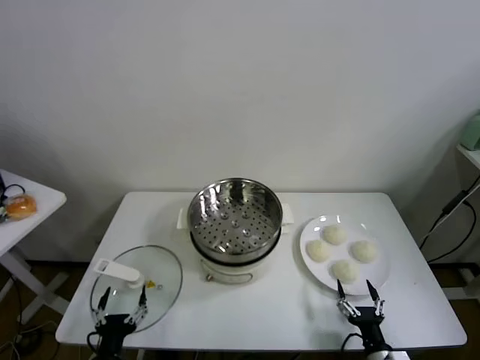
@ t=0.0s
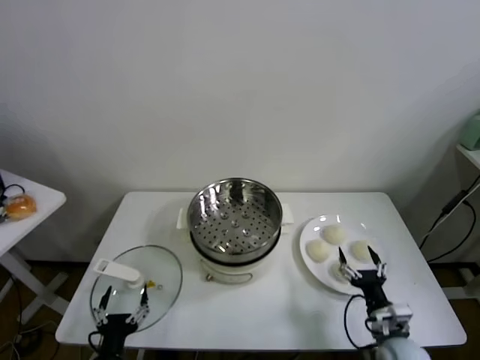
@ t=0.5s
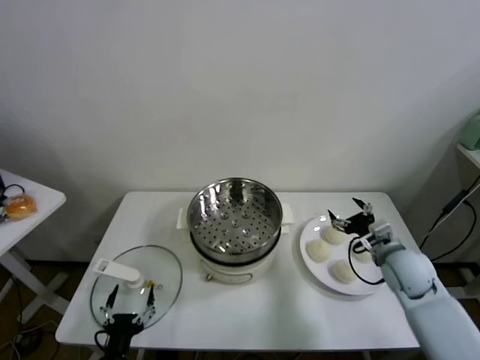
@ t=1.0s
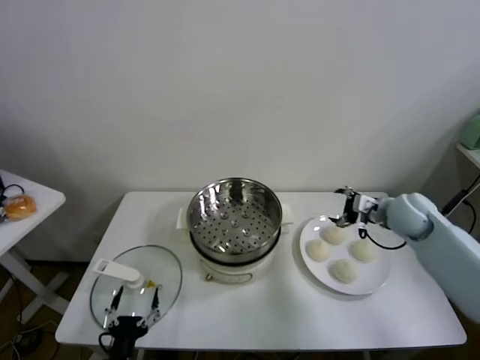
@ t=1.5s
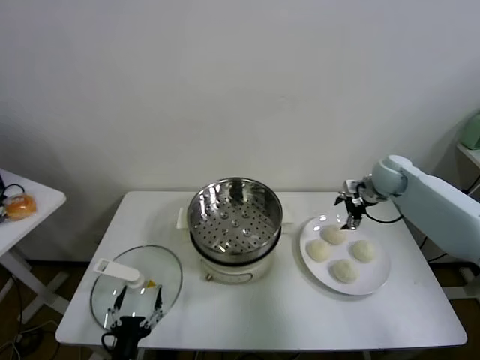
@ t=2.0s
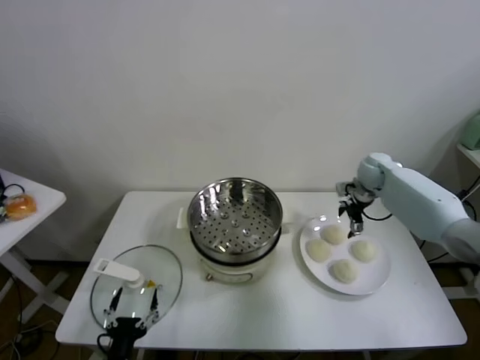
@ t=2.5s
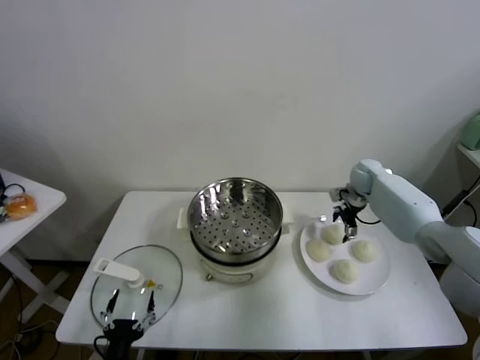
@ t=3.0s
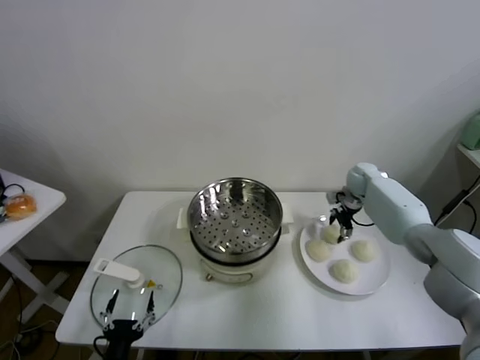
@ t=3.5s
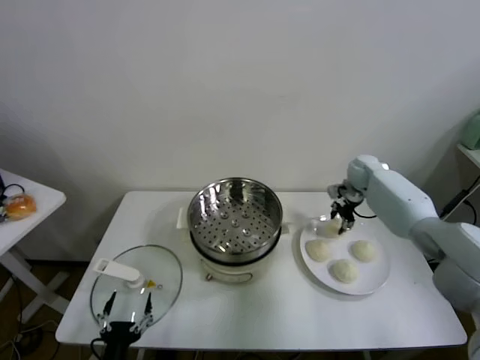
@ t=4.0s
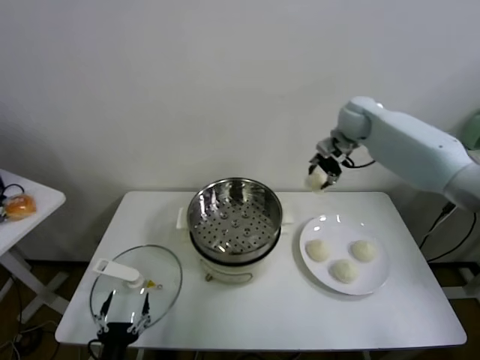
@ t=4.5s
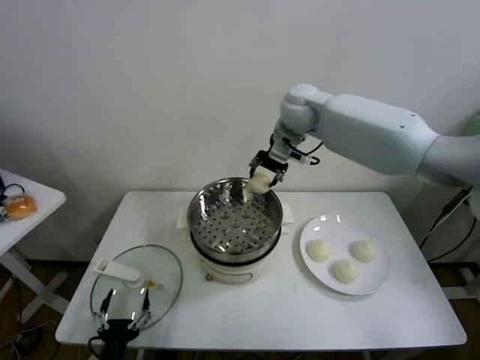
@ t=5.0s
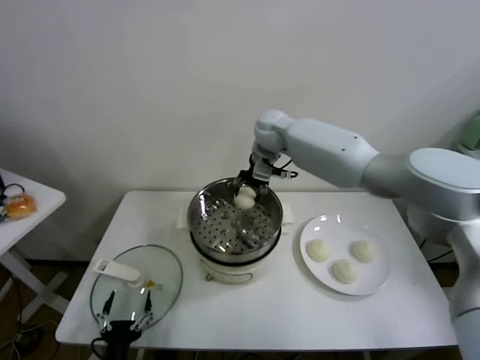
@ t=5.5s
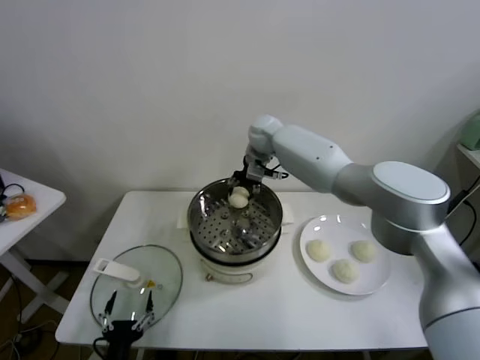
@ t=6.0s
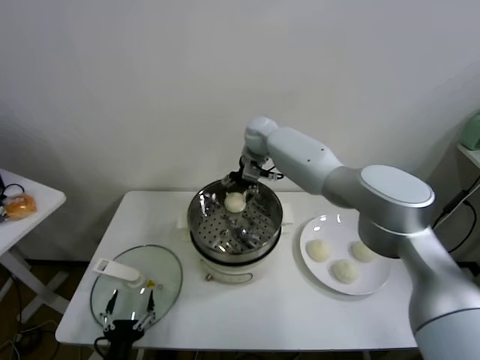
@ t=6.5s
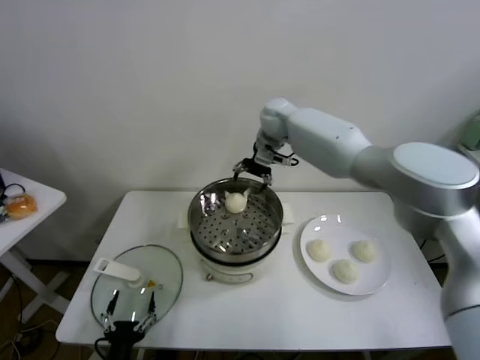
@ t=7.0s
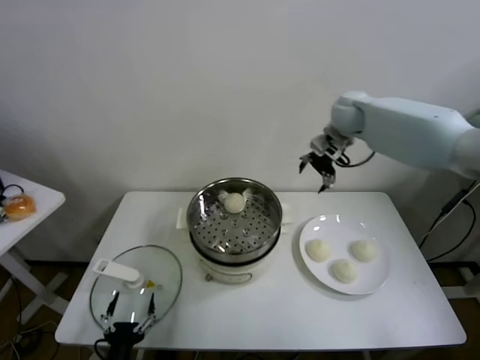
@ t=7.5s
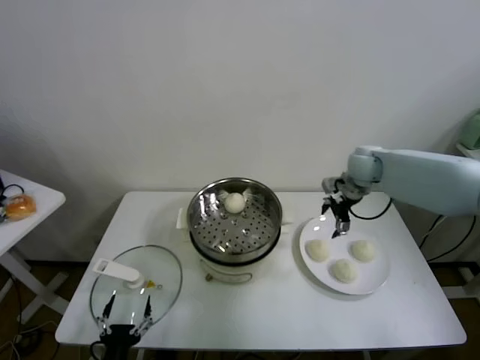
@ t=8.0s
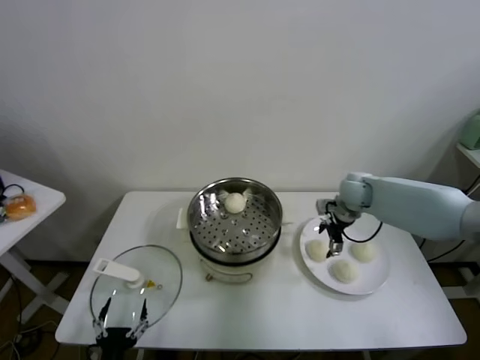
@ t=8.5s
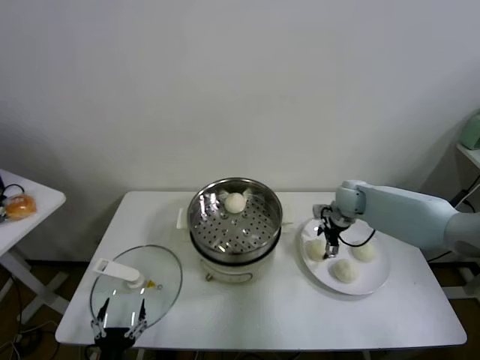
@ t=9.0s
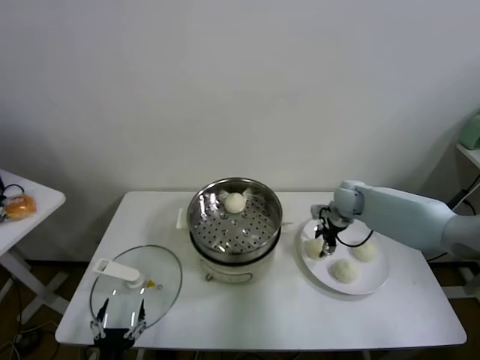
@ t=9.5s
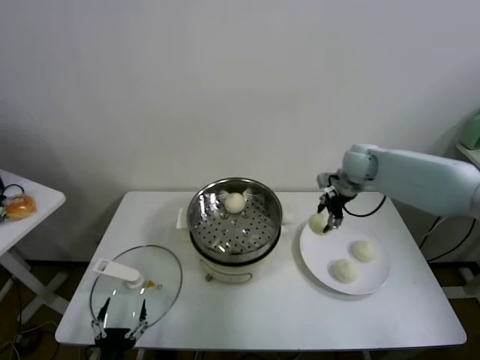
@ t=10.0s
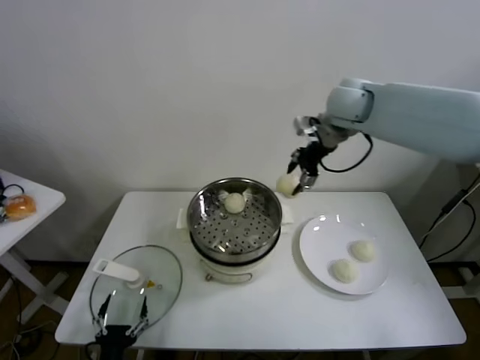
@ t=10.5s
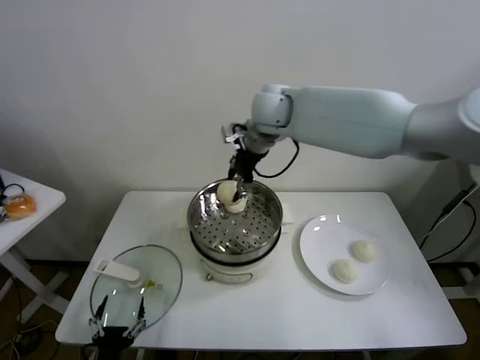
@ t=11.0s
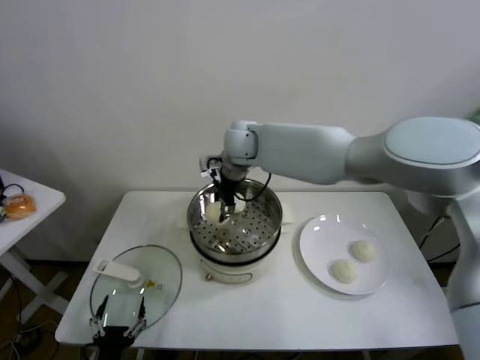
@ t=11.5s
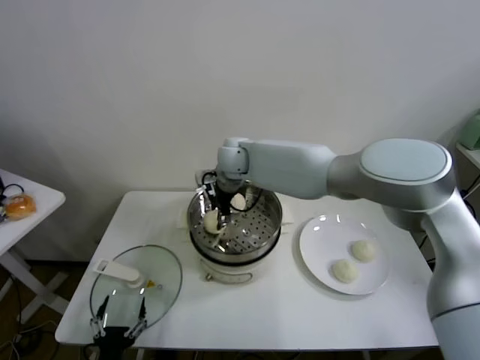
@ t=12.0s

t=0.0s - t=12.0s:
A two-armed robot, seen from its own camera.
Task of the whole recording: take steamed baozi put them in steamer.
Step, t=0.0s - t=3.5s: Grasp the baozi in the plate with right gripper.
Step, t=4.0s - t=6.5s: Place the baozi on the steamer with right gripper.
Step, t=7.0s - t=9.0s: Grasp the baozi in the plate with right gripper.
t=2.0s - t=4.0s: The right gripper travels forward by some 5 cm, travels downward and back again, roughly 10 cm each way, and closes up.
t=4.0s - t=6.0s: The right gripper heads to the left, covering some 30 cm.
t=6.0s - t=8.0s: The right gripper travels to the right by about 25 cm, and opens up.
t=8.0s - t=10.0s: The right gripper goes downward and returns, approximately 10 cm each way, and closes.
t=10.0s - t=12.0s: The right gripper travels to the left by roughly 30 cm.

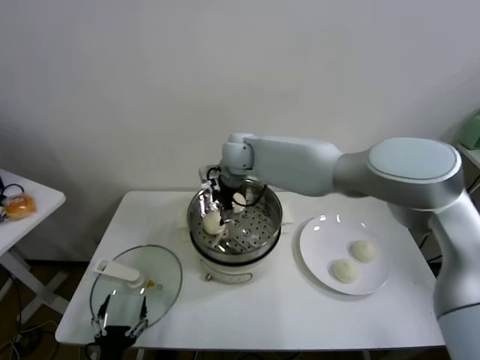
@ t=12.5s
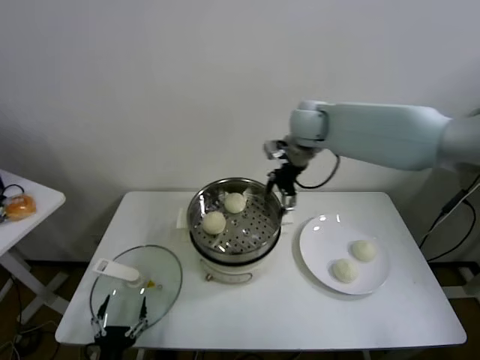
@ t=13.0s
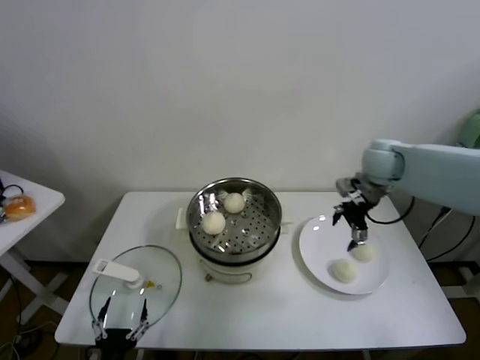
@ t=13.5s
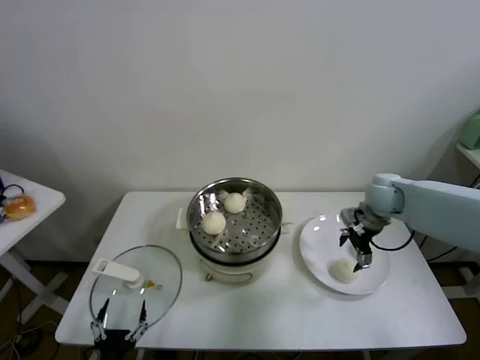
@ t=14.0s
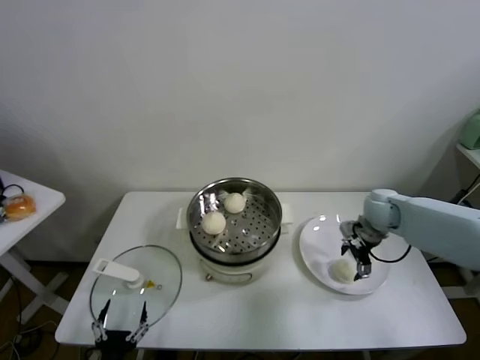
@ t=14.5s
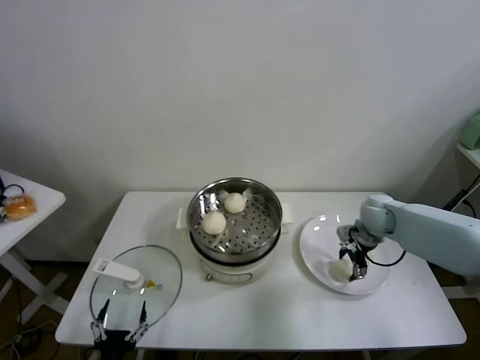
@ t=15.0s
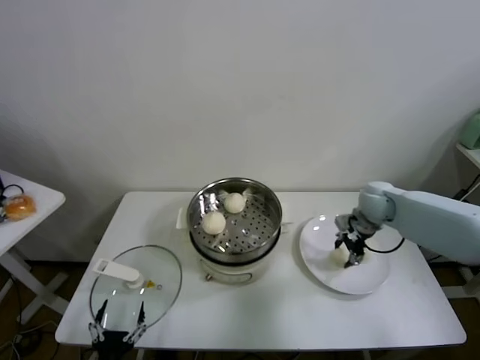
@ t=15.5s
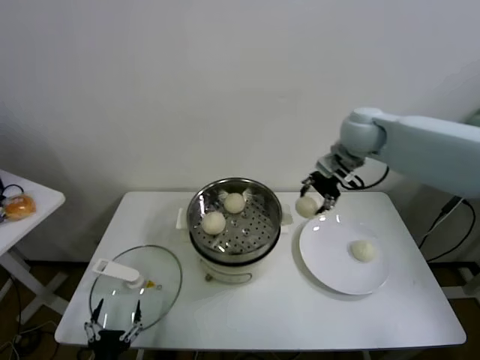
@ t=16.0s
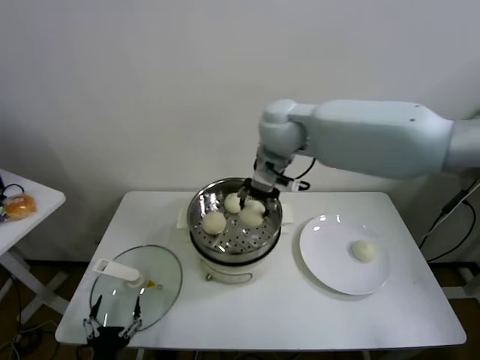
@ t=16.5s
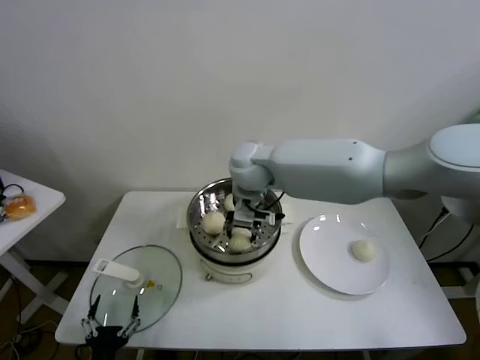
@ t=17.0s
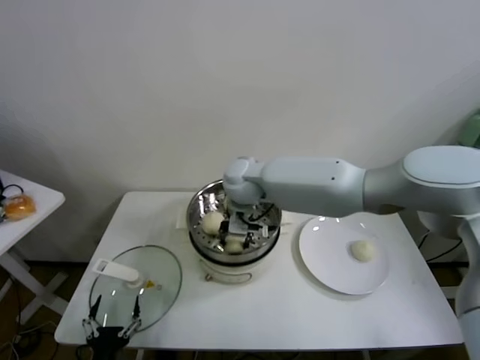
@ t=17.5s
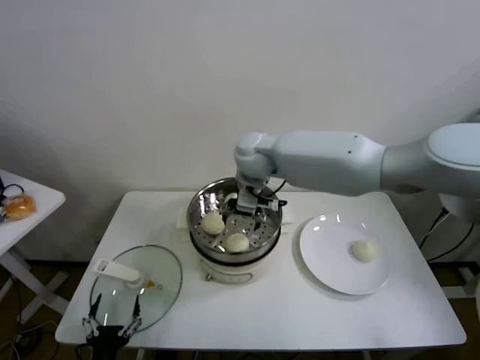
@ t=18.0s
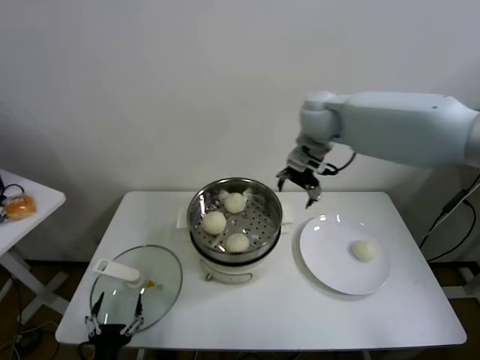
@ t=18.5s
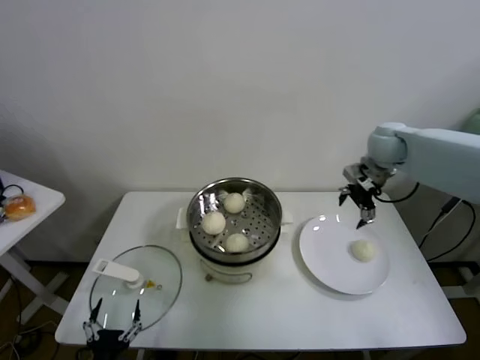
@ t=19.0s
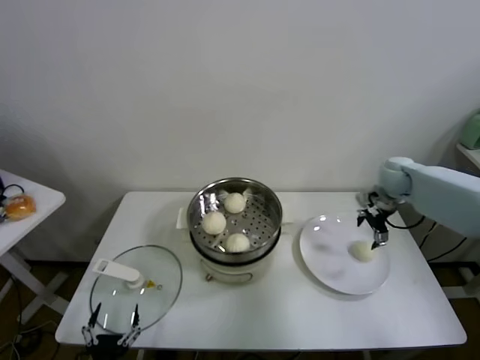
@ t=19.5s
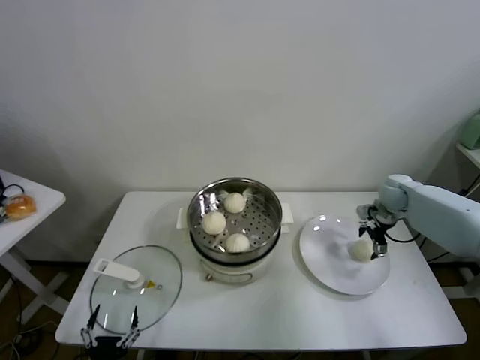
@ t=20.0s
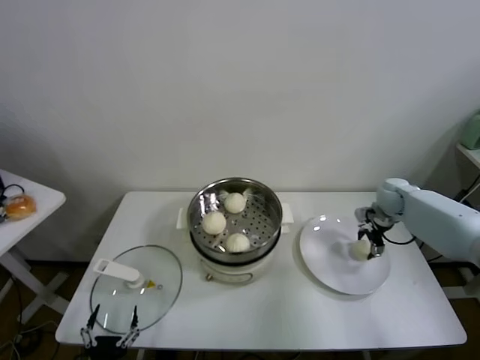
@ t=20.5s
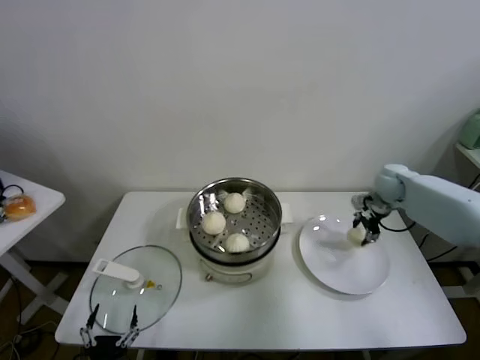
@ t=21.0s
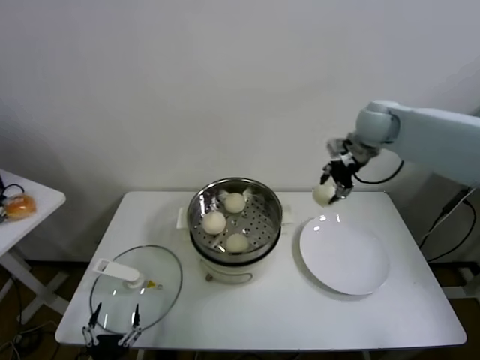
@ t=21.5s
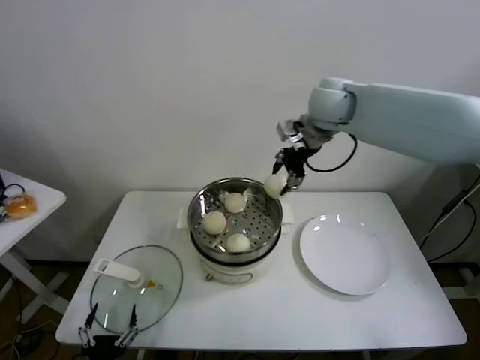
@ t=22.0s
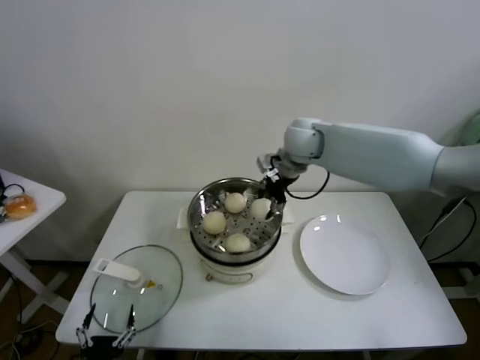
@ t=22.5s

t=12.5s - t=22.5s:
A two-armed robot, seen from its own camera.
Task of the whole recording: take steamed baozi put them in steamer.
Step, t=12.5s - t=15.0s: Grasp the baozi in the plate with right gripper.
Step, t=15.5s - t=17.5s: Place the baozi on the steamer with right gripper.
Step, t=18.0s - t=20.5s: Grasp the baozi in the plate with right gripper.
t=12.5s - t=14.5s: The right gripper goes about 35 cm to the right.
t=14.5s - t=16.5s: The right gripper is displaced to the left and upward by roughly 35 cm, and closes.
t=16.5s - t=18.5s: The right gripper heads to the right and forward, covering about 10 cm, and opens.
t=18.5s - t=20.5s: The right gripper heads downward and to the right, covering about 35 cm, and closes.
t=20.5s - t=22.5s: The right gripper moves to the left and upward, approximately 35 cm, and closes up.

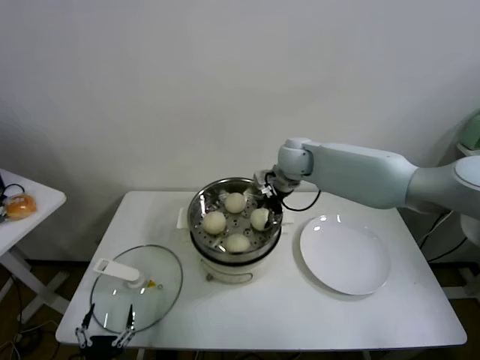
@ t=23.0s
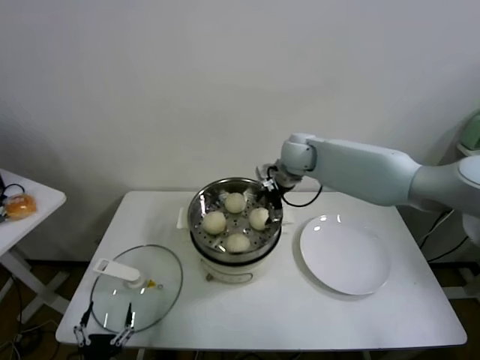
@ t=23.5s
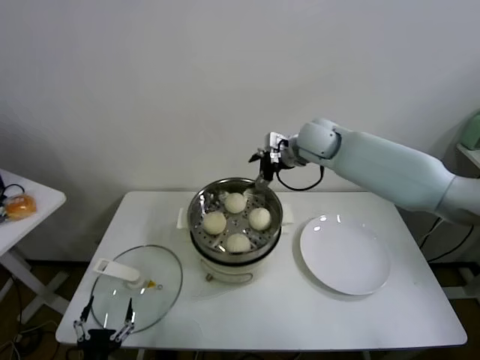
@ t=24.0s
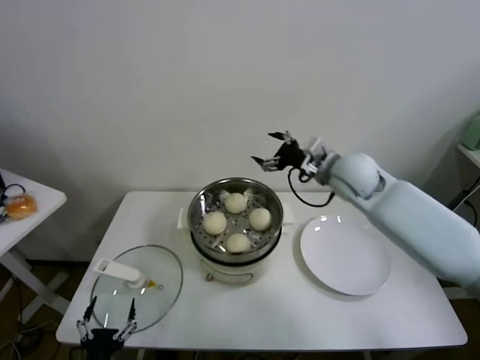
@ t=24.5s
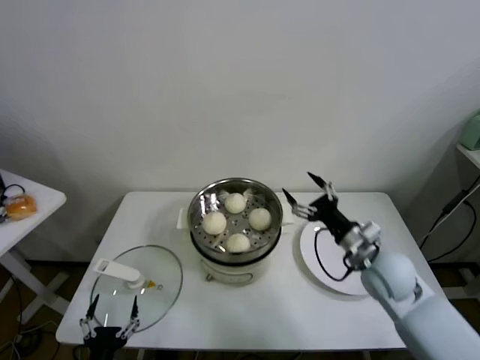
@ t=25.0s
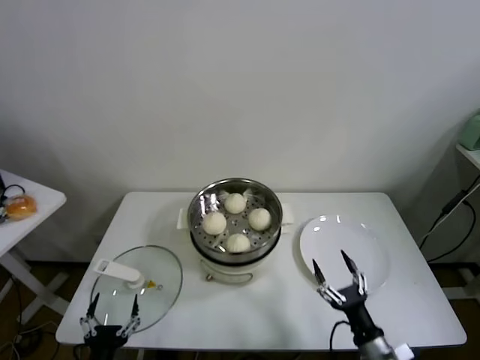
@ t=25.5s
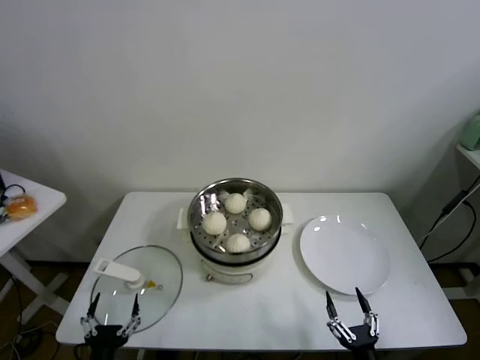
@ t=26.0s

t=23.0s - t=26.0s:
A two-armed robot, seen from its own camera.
Task of the whole recording: take steamed baozi put them in steamer.
t=23.0s - t=24.5s: The right gripper moves to the right and backward, roughly 10 cm, and opens up.
t=24.5s - t=26.0s: The right gripper goes some 50 cm backward and downward.
